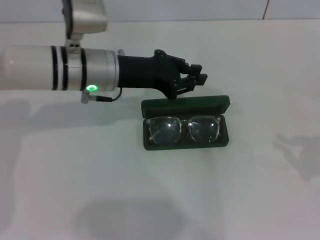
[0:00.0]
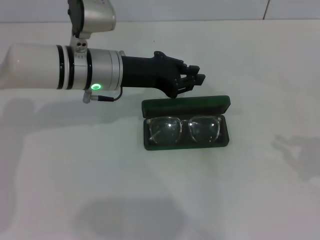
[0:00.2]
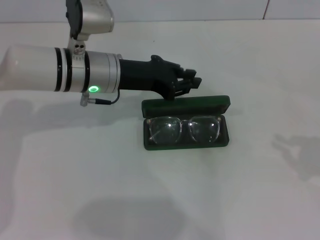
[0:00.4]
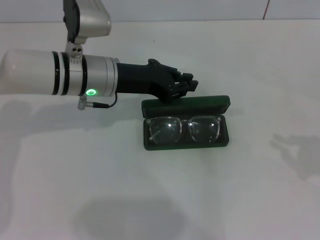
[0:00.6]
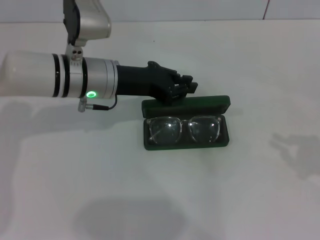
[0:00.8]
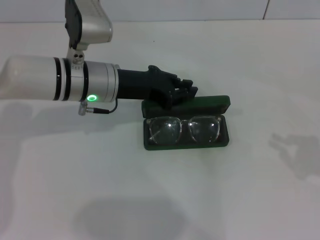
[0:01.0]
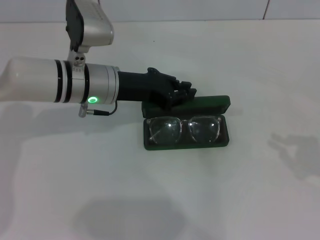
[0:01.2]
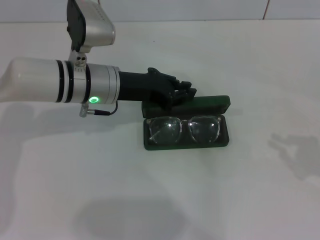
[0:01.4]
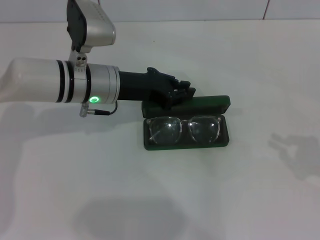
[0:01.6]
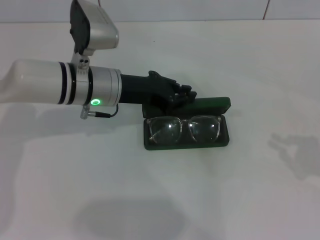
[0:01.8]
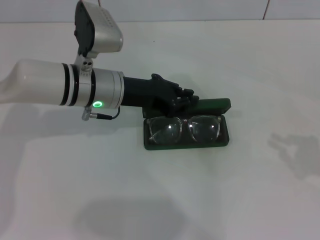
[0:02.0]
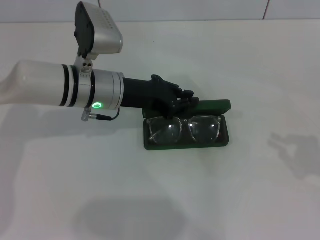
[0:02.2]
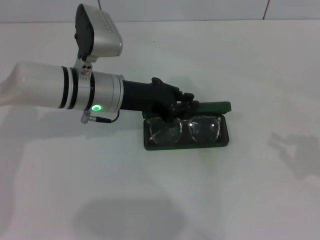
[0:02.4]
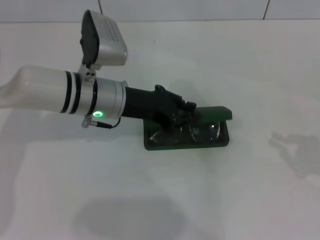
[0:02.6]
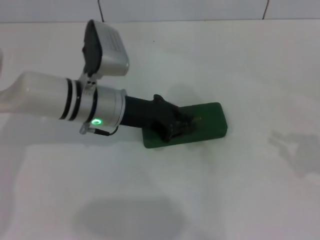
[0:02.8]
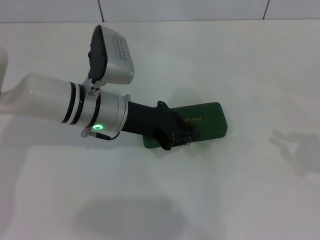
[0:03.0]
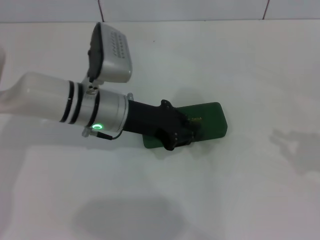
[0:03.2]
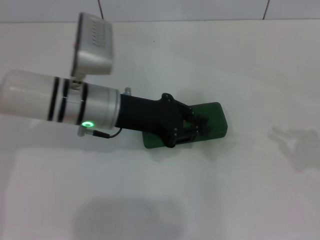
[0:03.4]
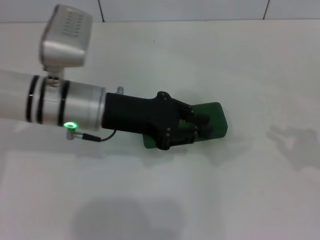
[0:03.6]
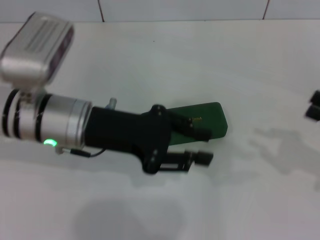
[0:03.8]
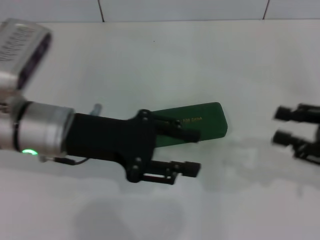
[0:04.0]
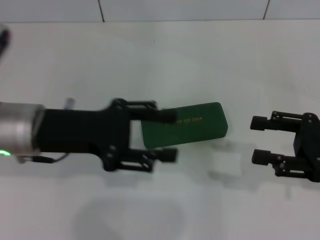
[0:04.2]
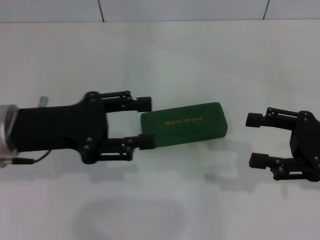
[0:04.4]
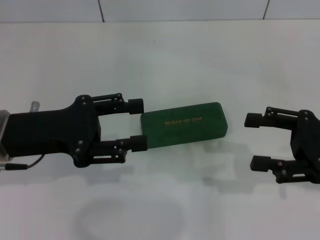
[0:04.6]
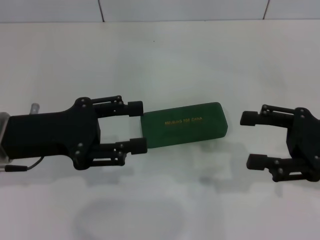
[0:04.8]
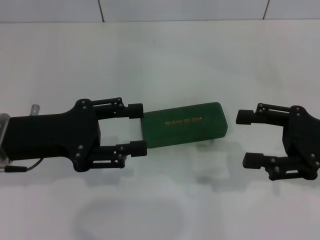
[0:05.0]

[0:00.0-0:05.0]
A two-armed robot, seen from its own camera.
Step, 0:00.0 to 0:02.8: Close the glasses case with your left hand.
0:00.0 to 0:03.4: The grippers make only small movements.
0:03.4 to 0:05.0: The left gripper moves to the left and backward, roughly 15 cm, and opens. The right gripper is displaced to the left by about 10 cm, and opens its fingers.

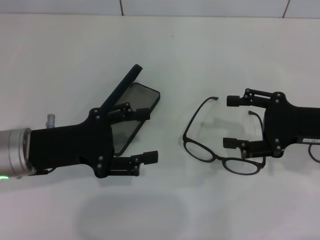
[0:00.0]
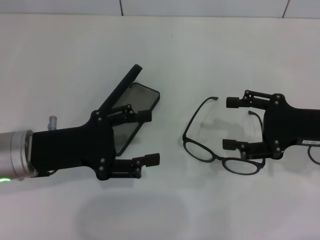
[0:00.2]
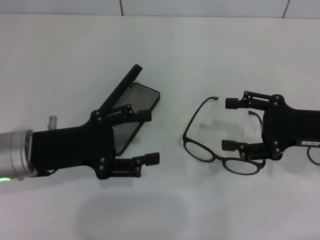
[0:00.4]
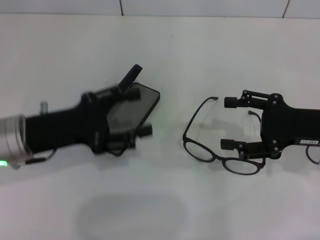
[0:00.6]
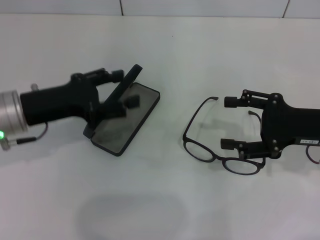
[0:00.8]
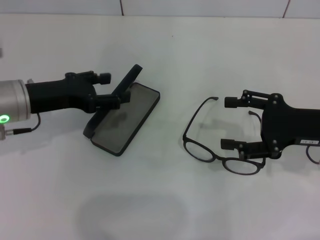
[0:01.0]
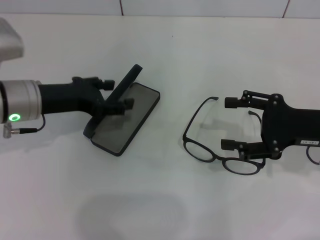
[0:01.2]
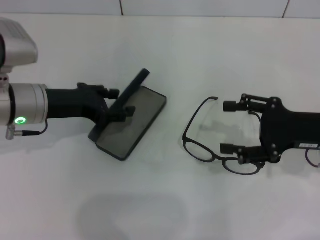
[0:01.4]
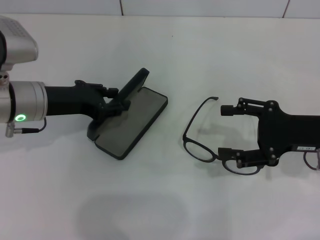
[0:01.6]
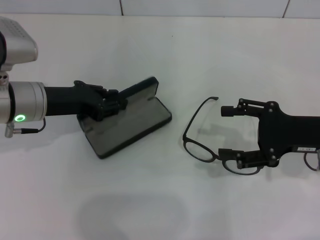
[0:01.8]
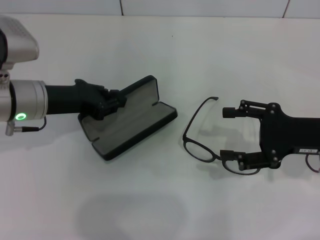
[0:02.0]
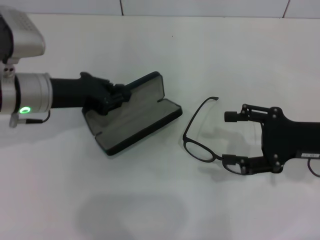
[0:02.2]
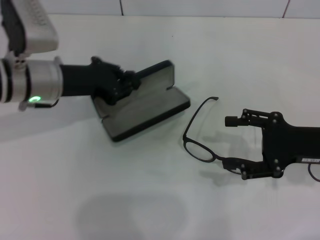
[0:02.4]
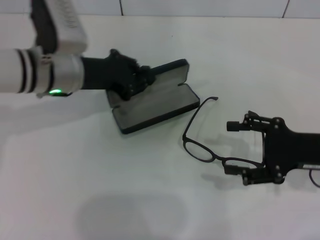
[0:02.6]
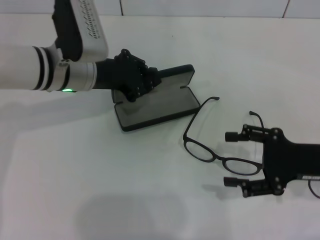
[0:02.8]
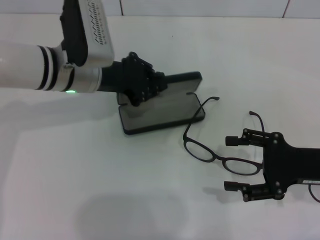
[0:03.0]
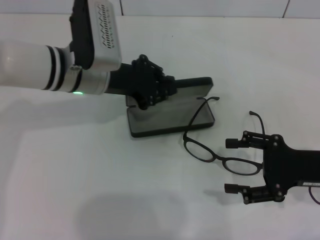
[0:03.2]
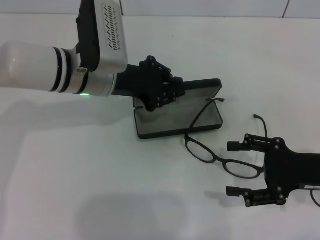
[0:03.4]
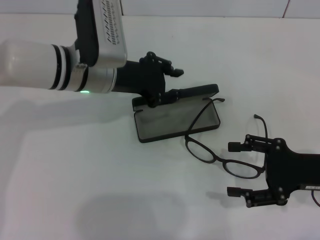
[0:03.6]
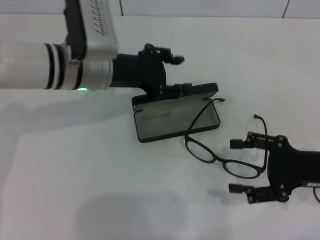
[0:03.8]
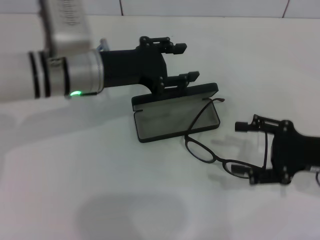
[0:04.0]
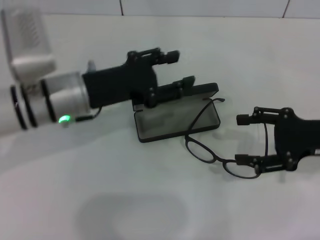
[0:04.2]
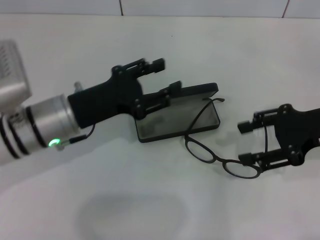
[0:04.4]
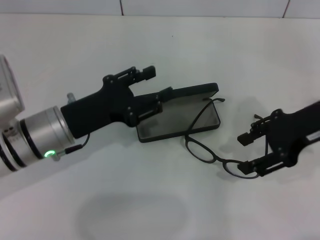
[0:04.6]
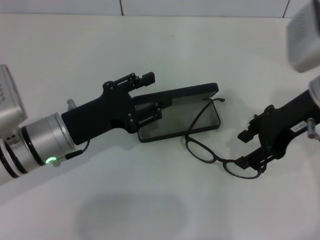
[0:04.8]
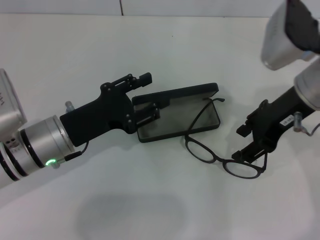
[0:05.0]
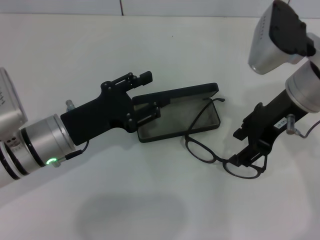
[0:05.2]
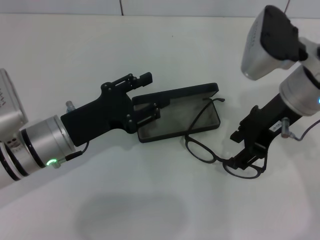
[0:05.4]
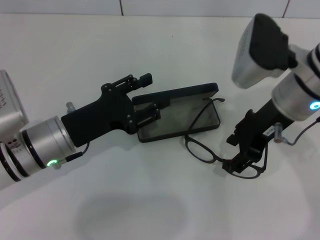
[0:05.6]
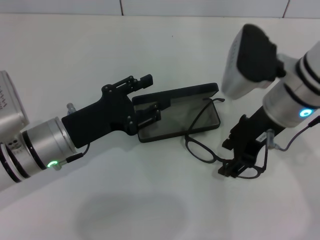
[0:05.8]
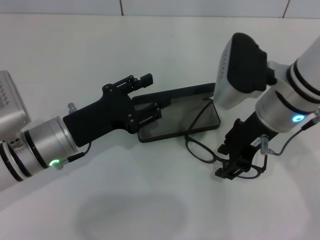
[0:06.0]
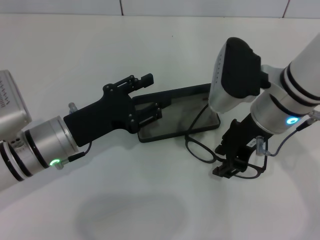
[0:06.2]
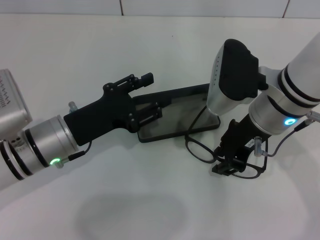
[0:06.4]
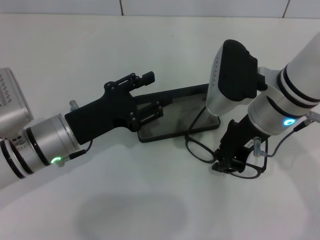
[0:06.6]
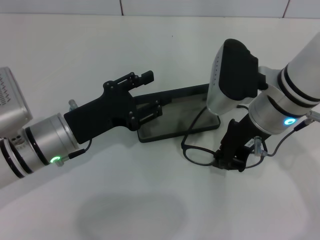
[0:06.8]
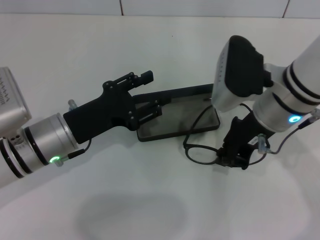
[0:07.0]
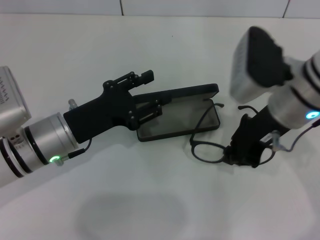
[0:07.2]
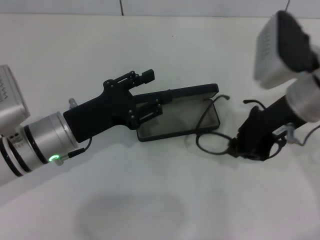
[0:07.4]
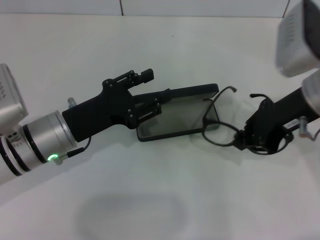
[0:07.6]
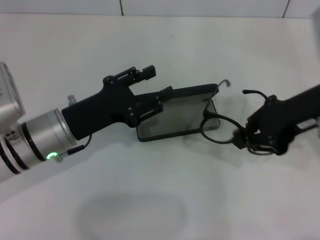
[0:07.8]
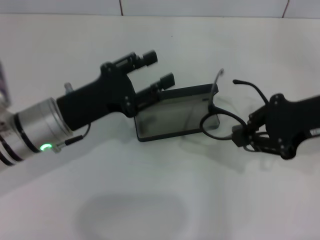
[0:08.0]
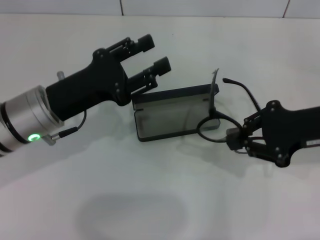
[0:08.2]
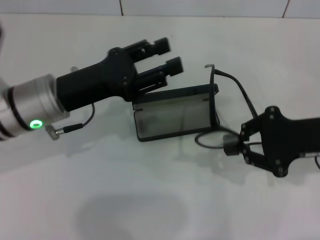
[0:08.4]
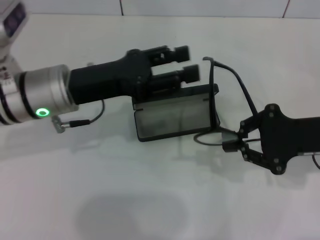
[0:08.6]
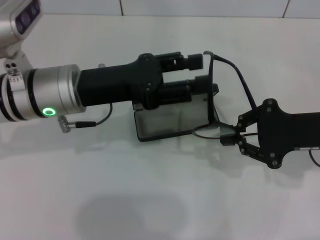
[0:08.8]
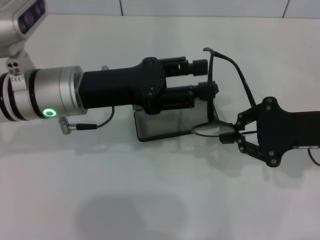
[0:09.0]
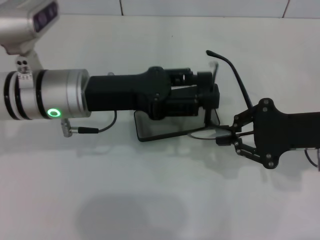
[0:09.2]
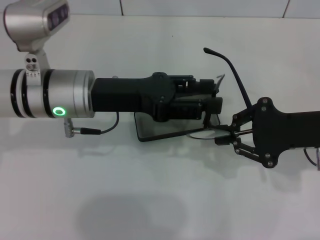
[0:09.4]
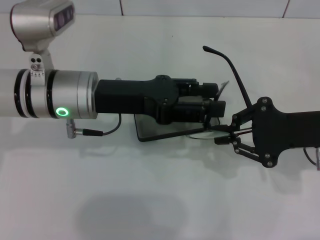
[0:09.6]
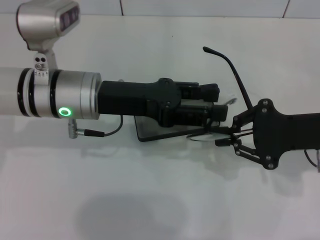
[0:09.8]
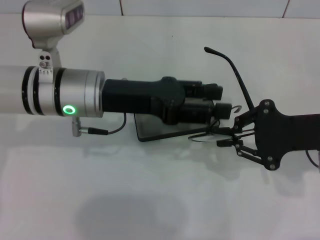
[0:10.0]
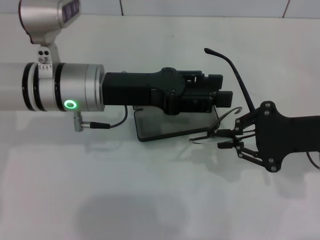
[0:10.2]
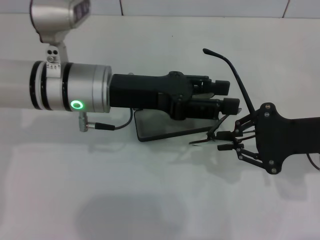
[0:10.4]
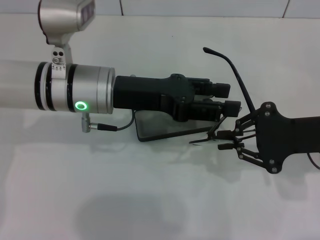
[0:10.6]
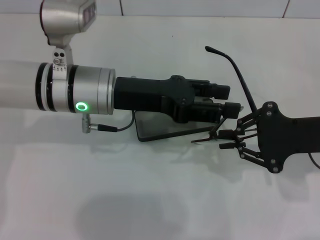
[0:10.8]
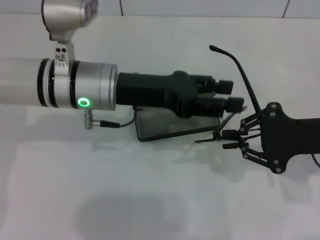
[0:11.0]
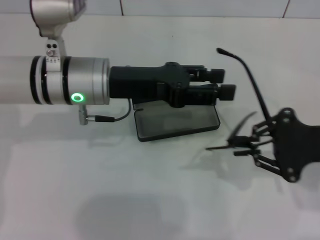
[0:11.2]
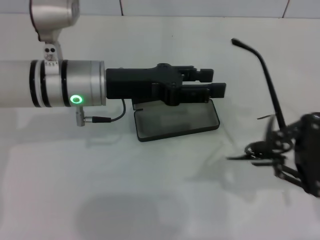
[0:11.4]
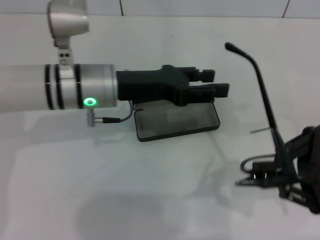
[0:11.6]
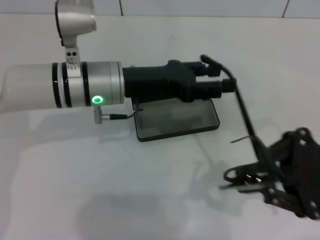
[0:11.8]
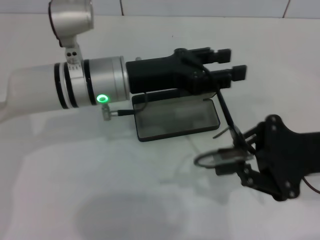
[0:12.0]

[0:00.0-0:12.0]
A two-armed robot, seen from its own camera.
Step, 0:00.0 to 0:01.6: Grab the glasses case with your left hand.
Step, 0:01.8 to 0:03.4: Place the glasses case in the center of the table with your left hand.
Step, 0:03.8 to 0:06.6: Grab the eyeglass frame with your right hand.
0:00.0 to 0:01.6: The left gripper is displaced forward by about 10 cm.
0:01.6 to 0:03.0: The left gripper moves to the right, some 10 cm, and closes up.
0:03.0 to 0:04.4: The right gripper goes approximately 10 cm upward. The left gripper heads backward, covering approximately 10 cm, and opens its fingers.
0:04.4 to 0:06.0: The right gripper heads to the left, covering about 15 cm.
0:06.0 to 0:07.6: The right gripper heads to the right, covering roughly 5 cm, and closes up.
0:07.6 to 0:09.0: The right gripper travels downward and to the right by some 10 cm. Meanwhile the left gripper moves upward, some 10 cm.

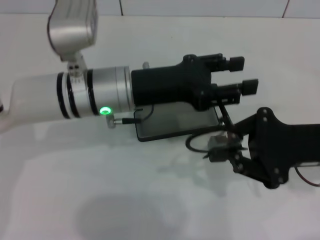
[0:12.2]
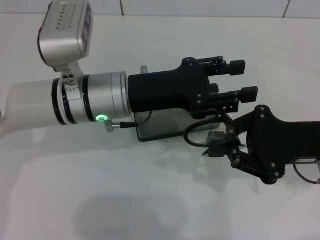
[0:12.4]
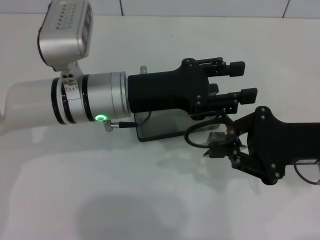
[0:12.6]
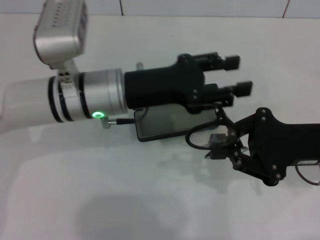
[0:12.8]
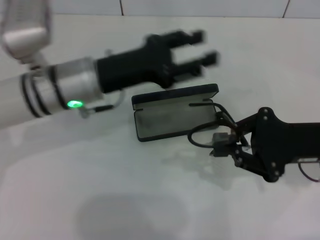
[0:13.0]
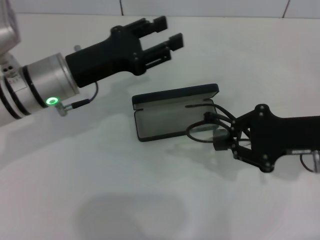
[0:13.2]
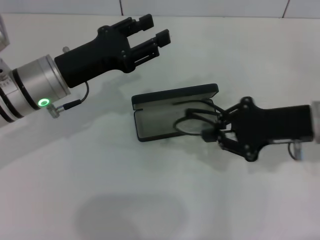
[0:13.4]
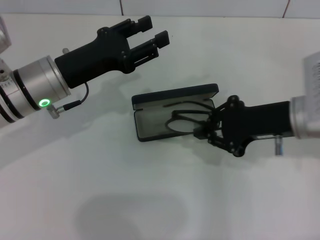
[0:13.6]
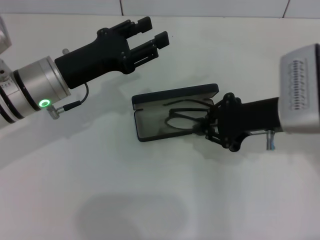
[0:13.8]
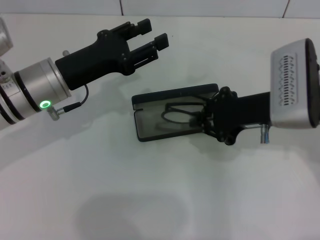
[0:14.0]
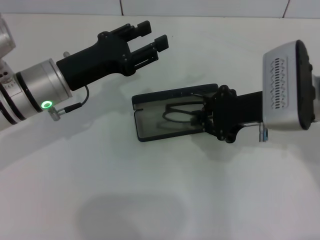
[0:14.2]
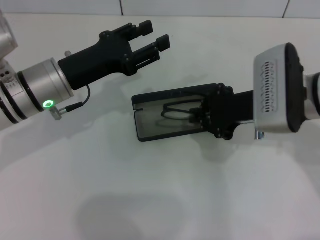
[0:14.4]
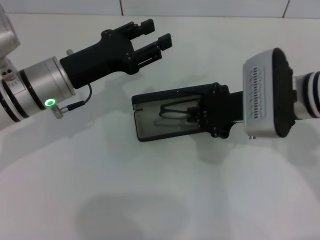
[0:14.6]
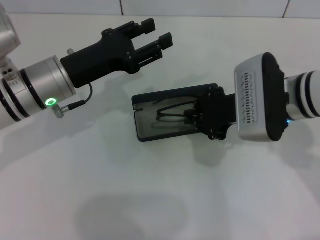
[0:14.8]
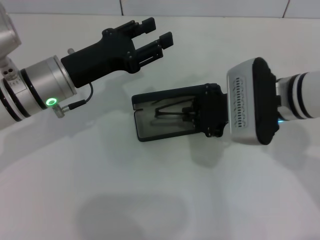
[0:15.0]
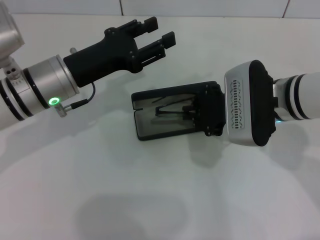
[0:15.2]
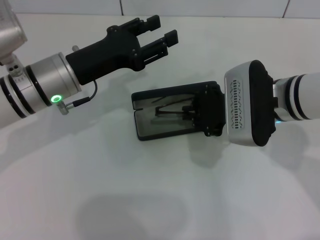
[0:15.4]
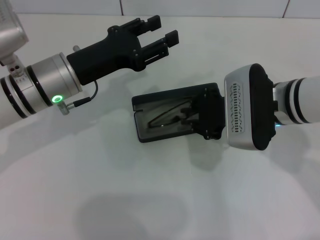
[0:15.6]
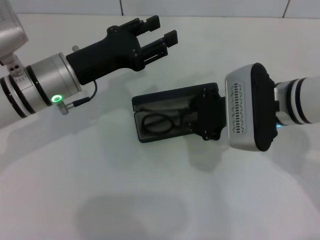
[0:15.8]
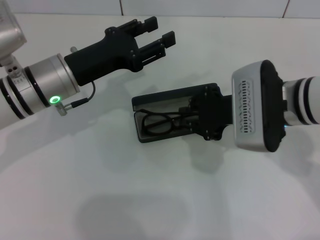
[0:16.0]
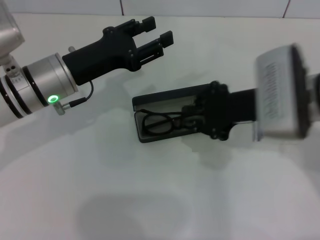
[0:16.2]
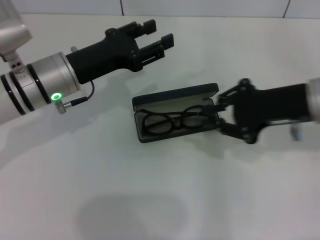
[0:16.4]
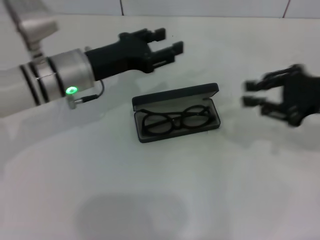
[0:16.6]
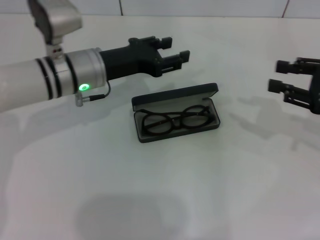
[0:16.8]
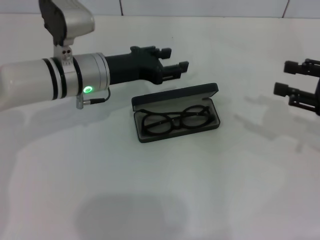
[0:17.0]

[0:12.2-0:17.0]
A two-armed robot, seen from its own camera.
Step, 0:12.8 to 0:15.8: Put the glasses into the case with your right hand.
0:12.2 to 0:13.8: The right gripper shifts by approximately 5 cm, while the left gripper goes about 10 cm to the left.
0:13.8 to 0:15.4: There are only small adjustments of the grippers.
0:15.4 to 0:17.0: The left gripper changes place by roughly 5 cm, while the right gripper travels to the right by some 20 cm.
